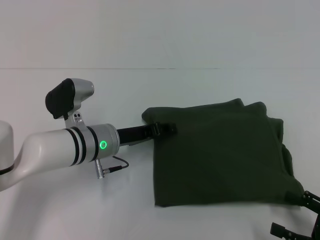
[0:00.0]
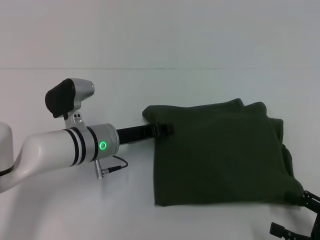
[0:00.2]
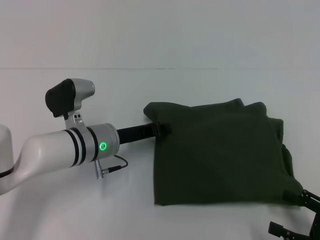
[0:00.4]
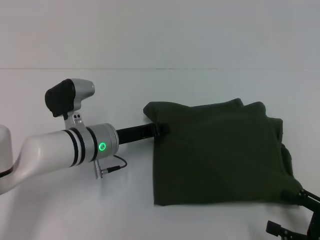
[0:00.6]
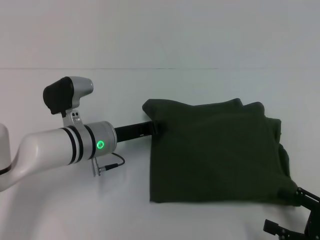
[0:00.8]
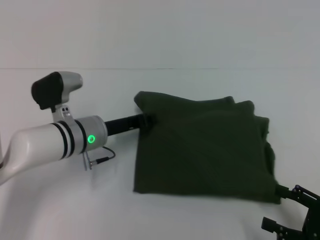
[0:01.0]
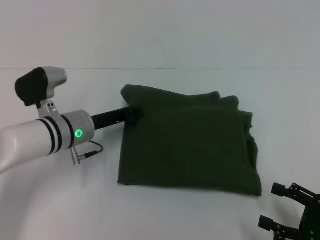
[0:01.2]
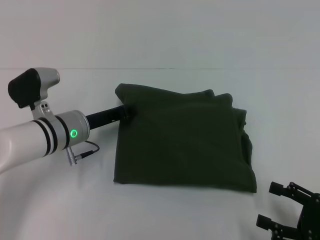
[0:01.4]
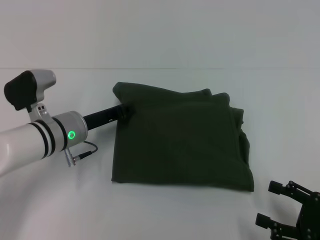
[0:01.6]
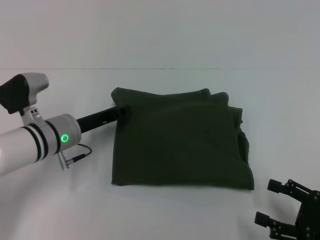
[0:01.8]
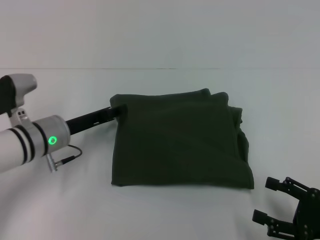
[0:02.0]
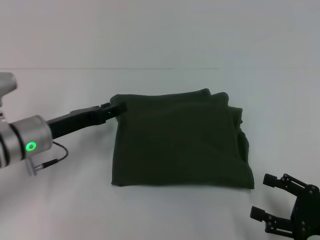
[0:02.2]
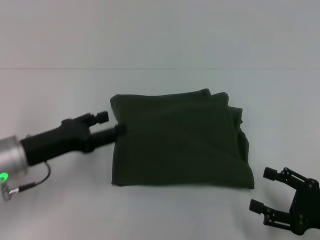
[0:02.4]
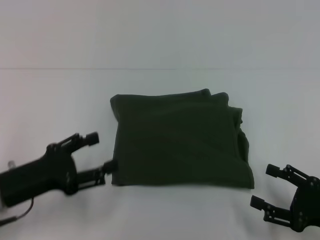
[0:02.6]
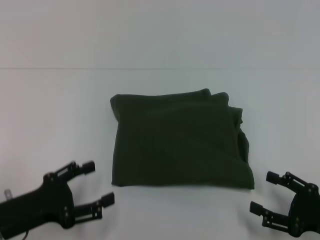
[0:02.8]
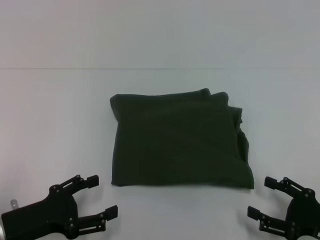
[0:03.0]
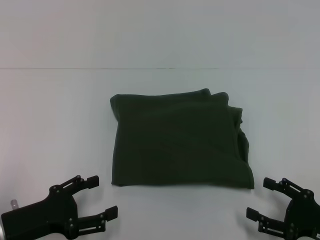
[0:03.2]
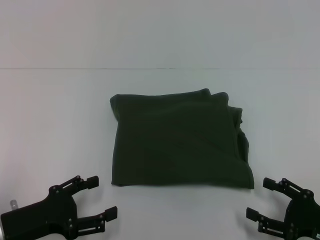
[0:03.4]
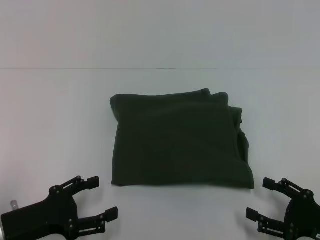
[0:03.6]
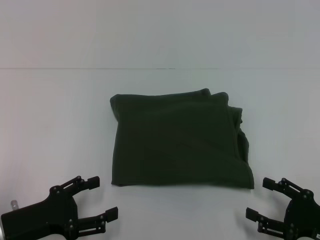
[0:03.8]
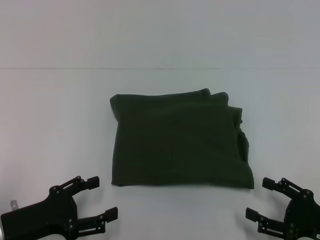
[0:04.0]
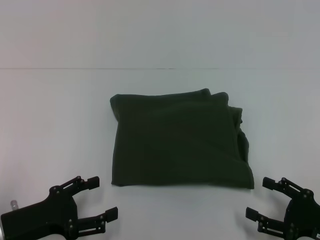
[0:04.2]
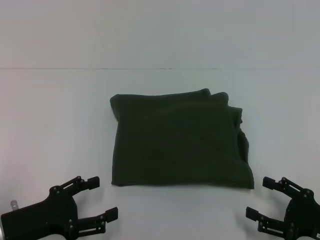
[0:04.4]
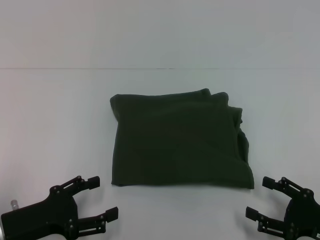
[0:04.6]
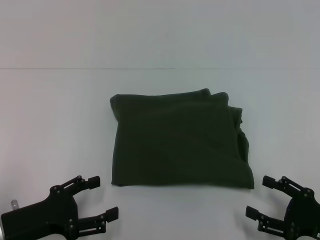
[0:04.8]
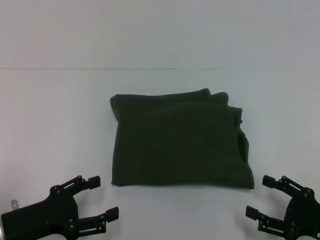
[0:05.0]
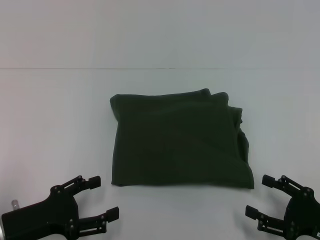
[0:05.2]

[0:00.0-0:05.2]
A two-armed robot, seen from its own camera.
Step, 0:00.0 to 0:03.0: Fold the clothes with your left hand.
0:00.0 to 0:01.8: The left gripper goes about 5 cm to the left, and closes.
0:01.8 to 0:03.4: The left gripper goes about 20 cm backward and to the left, and opens.
0:03.4 to 0:05.2: Both grippers stay about where they are.
